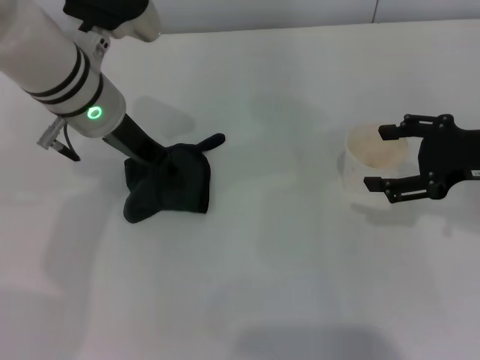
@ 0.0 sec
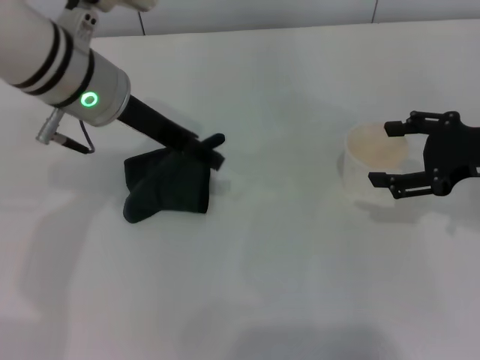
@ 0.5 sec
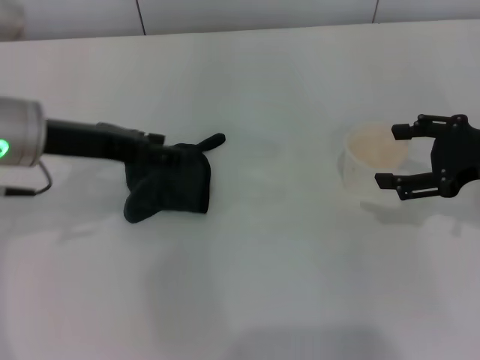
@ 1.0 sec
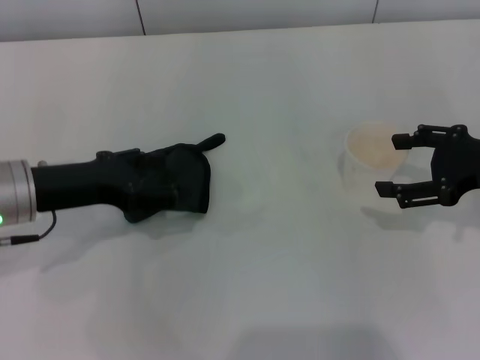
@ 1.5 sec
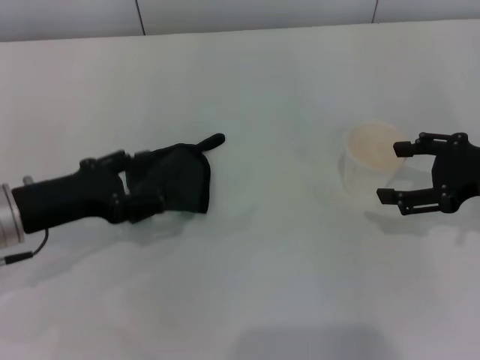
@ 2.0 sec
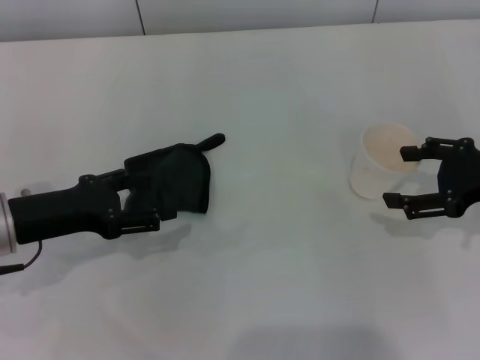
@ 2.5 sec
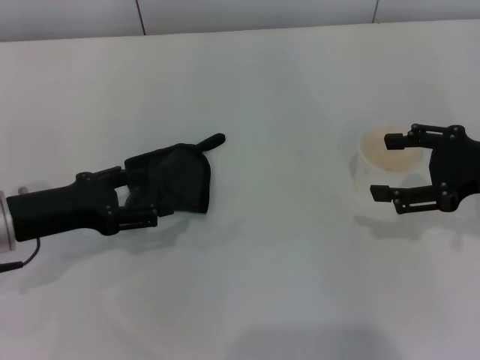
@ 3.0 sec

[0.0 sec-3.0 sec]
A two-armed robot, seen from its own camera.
0.0 sec to 1.5 sec: The left gripper moves to the left, backward and downward, some 15 cm, and opens.
1.5 sec to 3.0 sec: There are only small adjustments of the grippers.

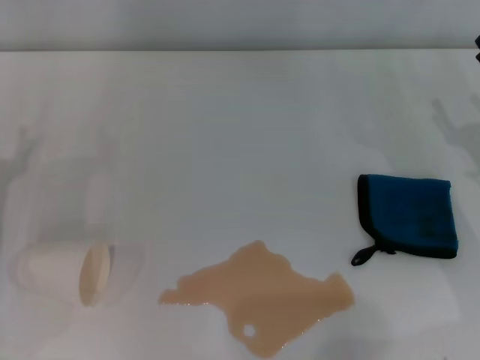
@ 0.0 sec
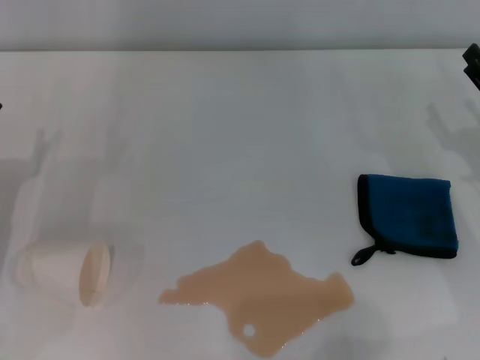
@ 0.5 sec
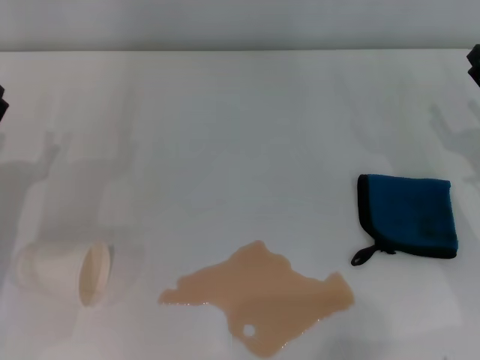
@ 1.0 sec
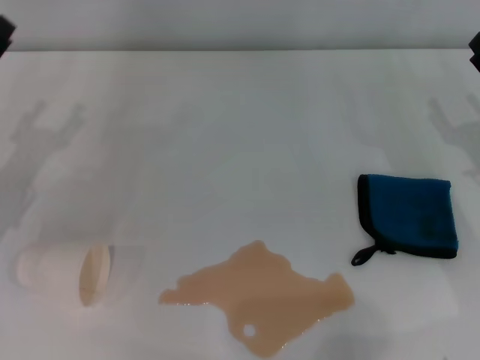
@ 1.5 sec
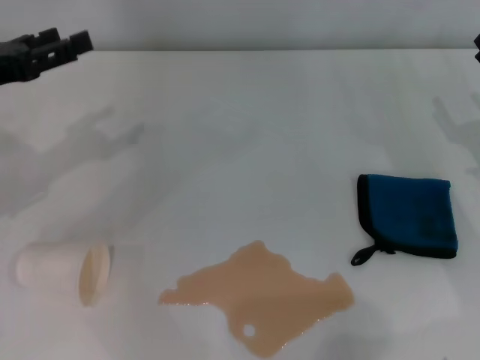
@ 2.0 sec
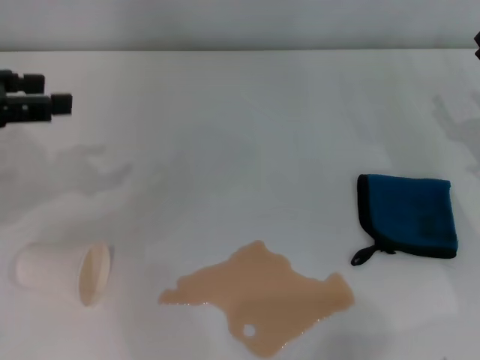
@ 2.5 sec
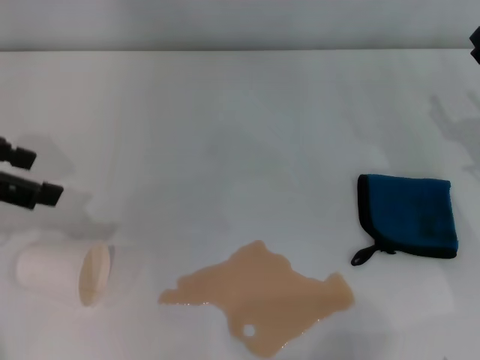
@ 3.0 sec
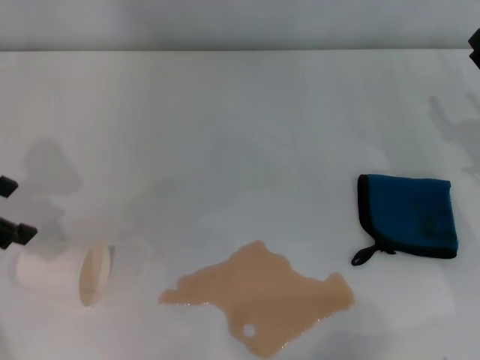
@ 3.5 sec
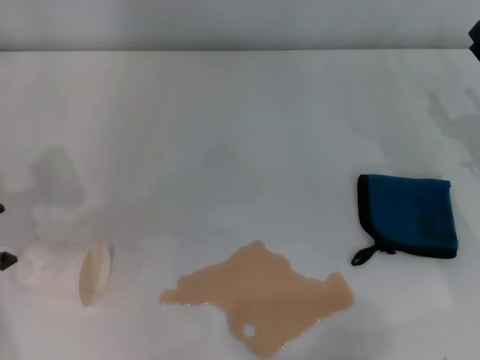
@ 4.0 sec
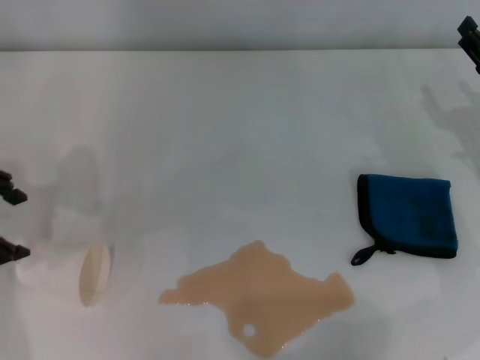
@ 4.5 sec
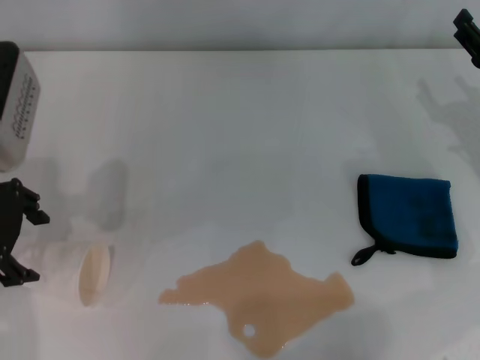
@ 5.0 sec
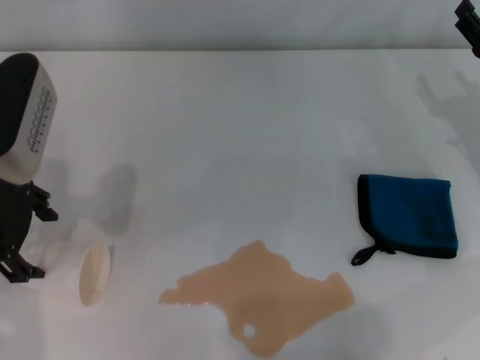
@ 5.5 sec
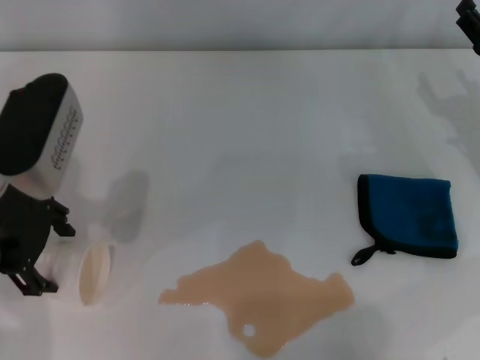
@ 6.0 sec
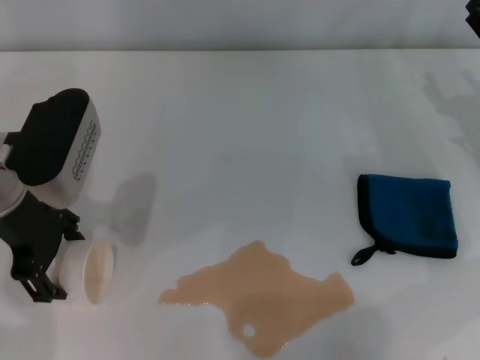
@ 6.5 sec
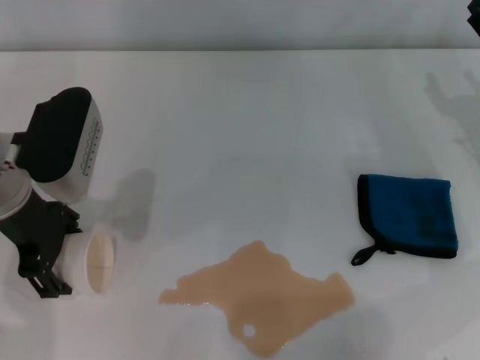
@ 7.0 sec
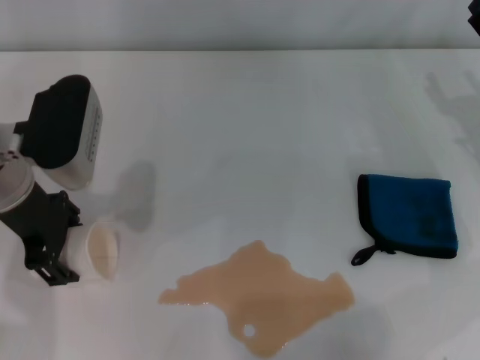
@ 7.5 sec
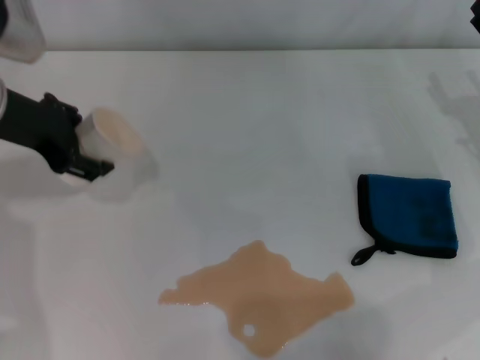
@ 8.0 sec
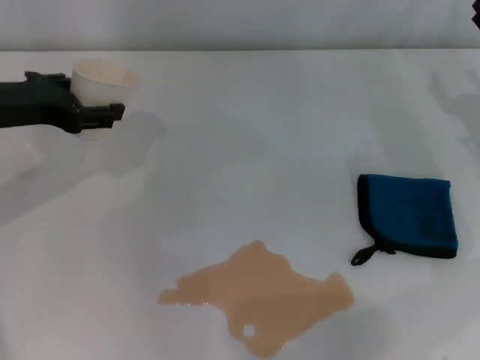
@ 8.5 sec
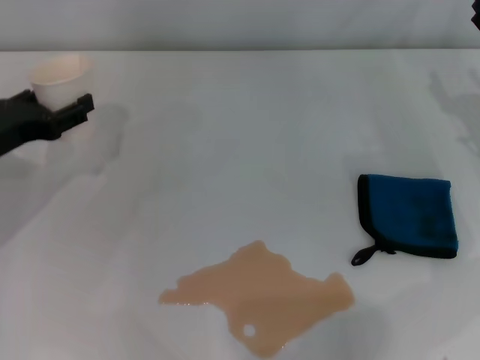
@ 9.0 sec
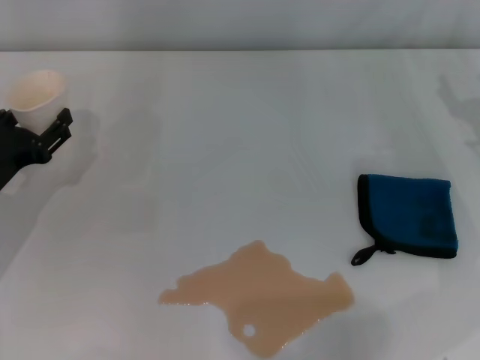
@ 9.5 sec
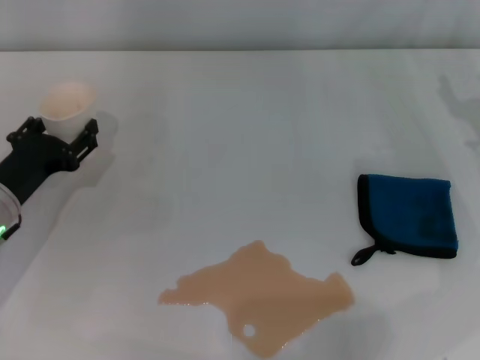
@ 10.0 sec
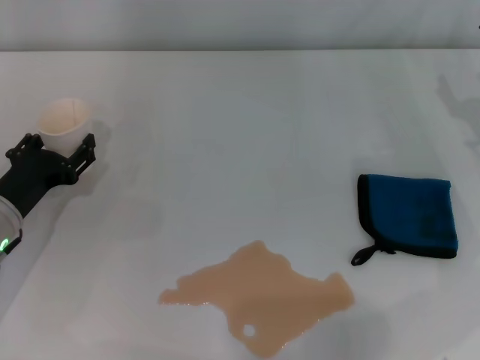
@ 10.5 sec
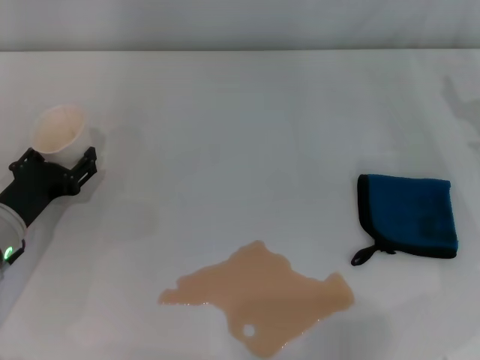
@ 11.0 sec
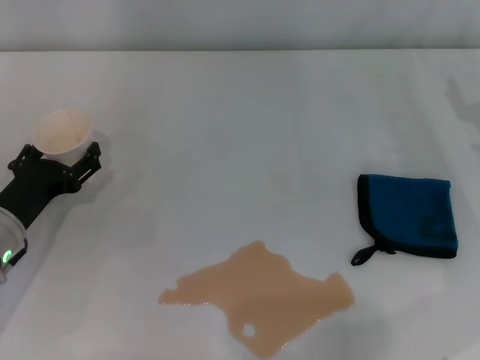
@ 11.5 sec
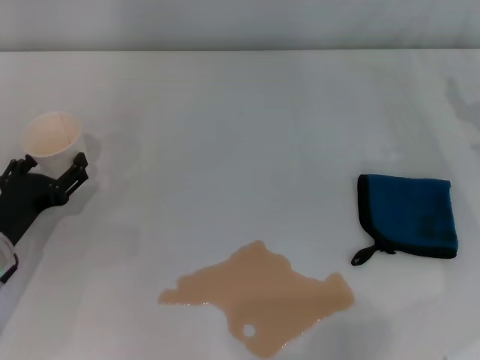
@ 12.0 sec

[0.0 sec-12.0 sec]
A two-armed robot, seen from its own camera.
Step, 0.0 sec to 7.0 sec: Grasp the paper cup with the left gripper.
0.0 sec to 2.0 sec: The left gripper shifts roughly 15 cm upward and forward.
2.0 sec to 4.0 sec: The left gripper closes and opens again.
4.0 sec to 6.0 sec: The left gripper shifts some 5 cm to the right.
6.0 sec to 8.0 sec: The left gripper closes.
8.0 sec to 10.0 sec: The left gripper is displaced downward by approximately 15 cm.
10.0 sec to 12.0 sec: The left gripper opens up.

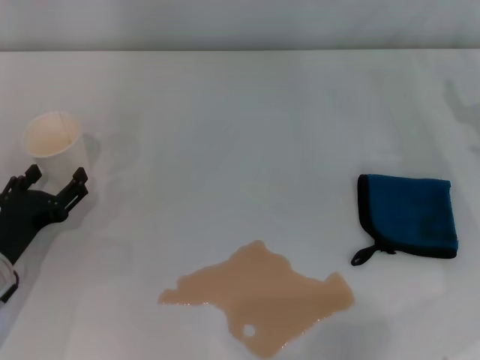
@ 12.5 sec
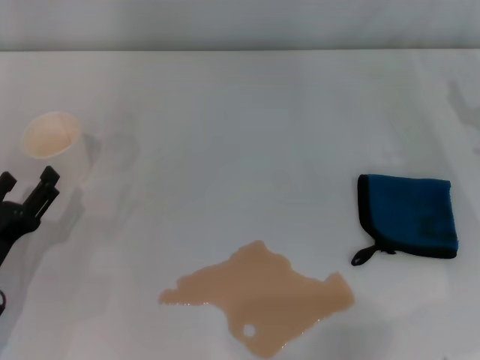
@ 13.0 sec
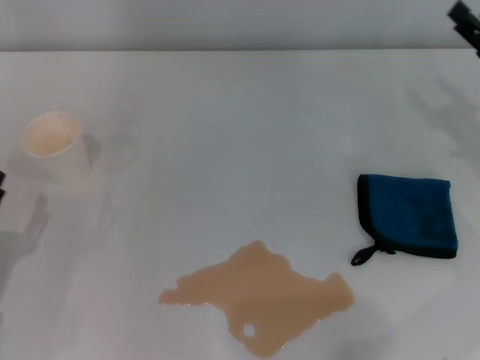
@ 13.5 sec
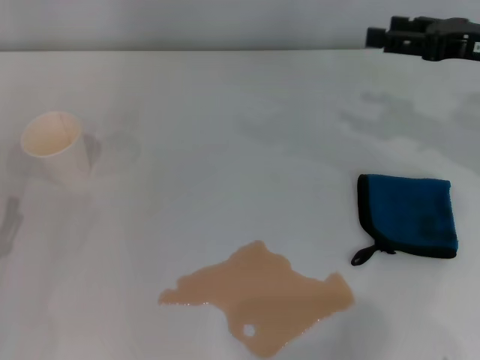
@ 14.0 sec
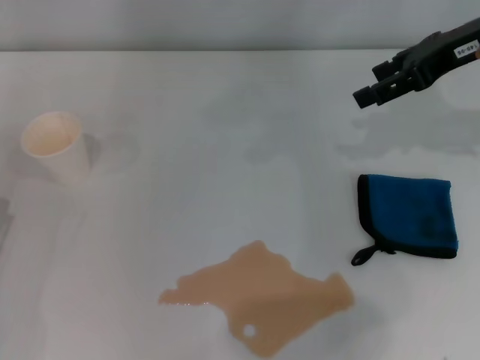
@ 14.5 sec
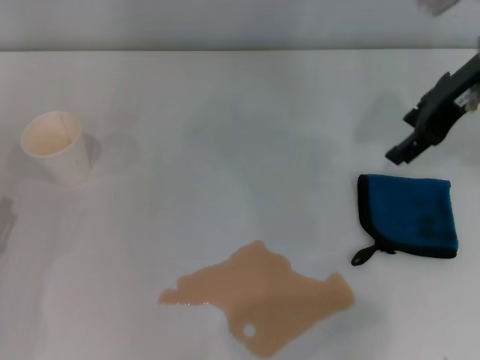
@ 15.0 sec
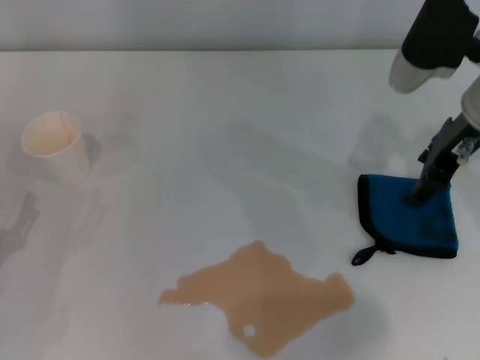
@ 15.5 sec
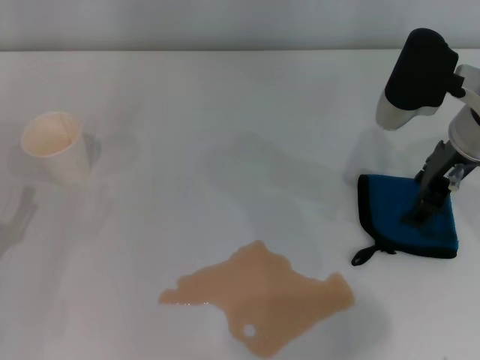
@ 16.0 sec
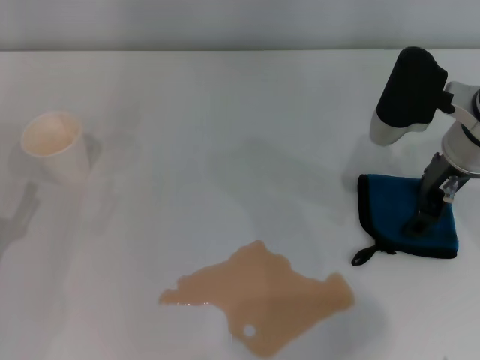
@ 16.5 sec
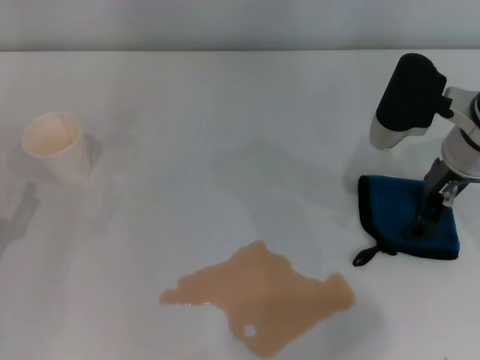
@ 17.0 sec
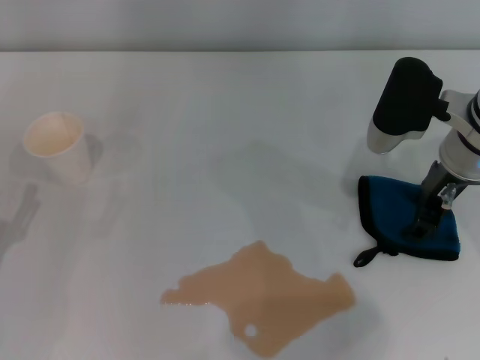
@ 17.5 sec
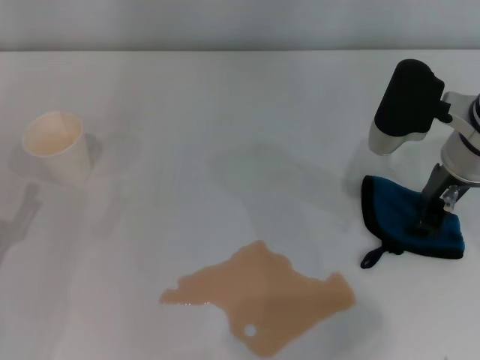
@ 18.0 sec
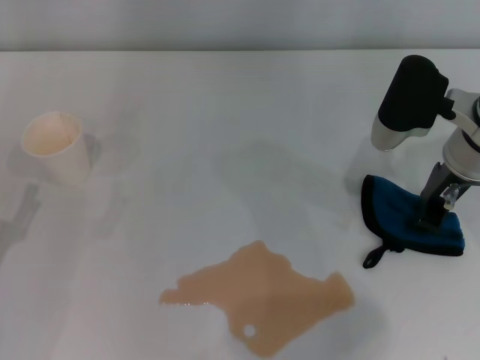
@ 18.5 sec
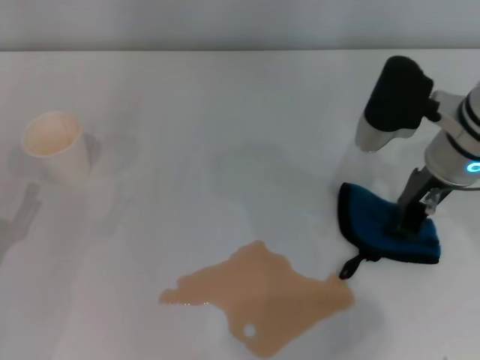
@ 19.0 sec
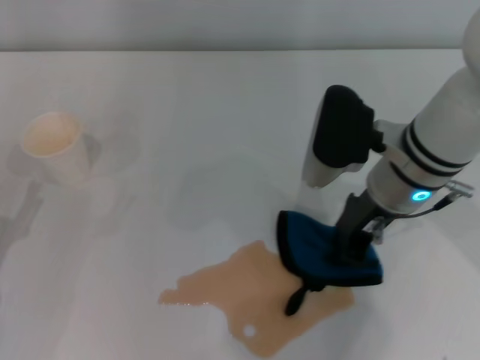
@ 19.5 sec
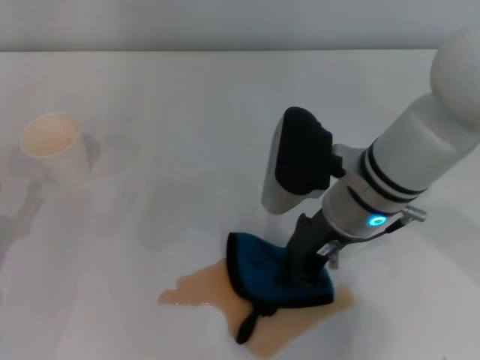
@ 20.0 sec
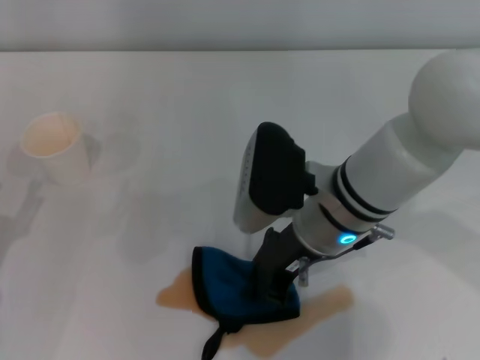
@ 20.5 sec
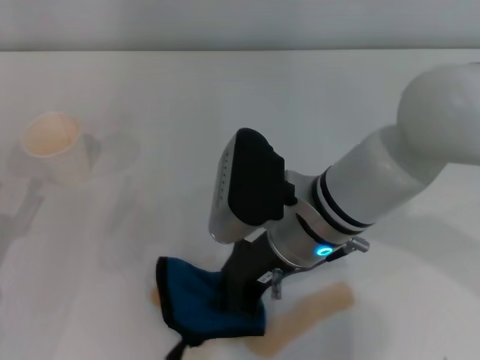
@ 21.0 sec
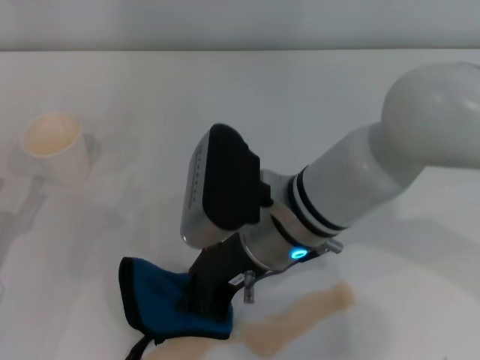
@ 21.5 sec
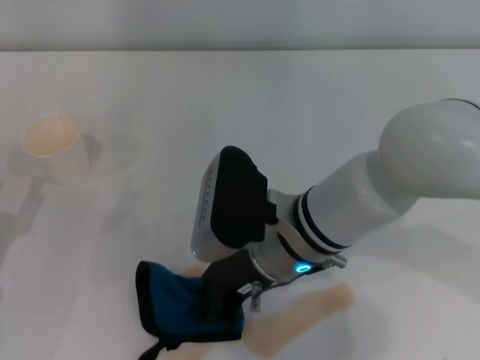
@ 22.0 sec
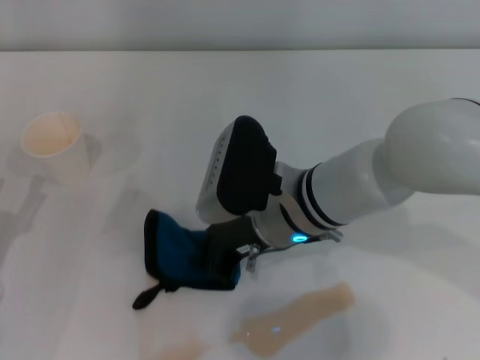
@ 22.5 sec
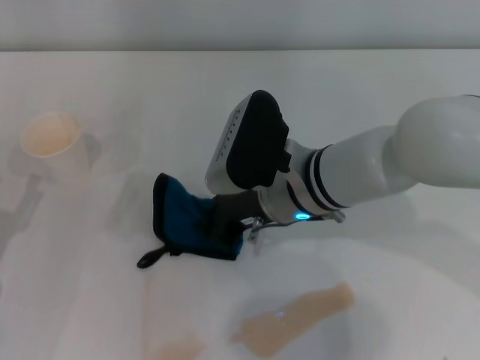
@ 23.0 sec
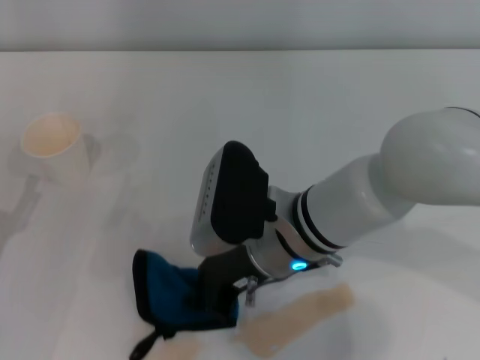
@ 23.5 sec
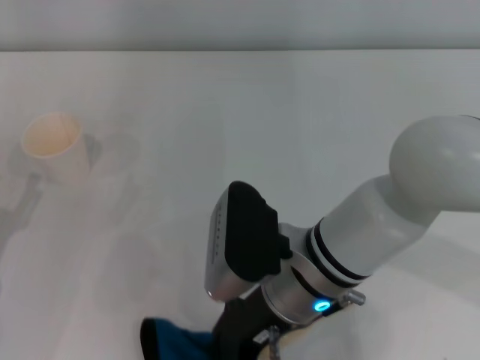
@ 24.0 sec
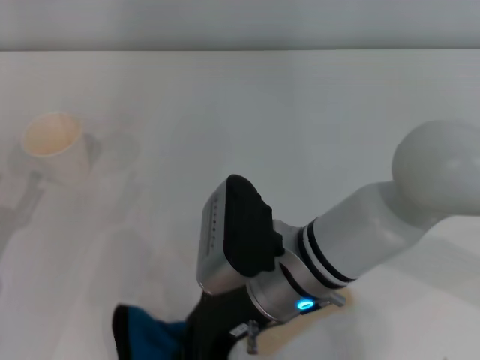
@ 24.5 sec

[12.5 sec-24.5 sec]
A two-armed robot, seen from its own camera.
Step, 12.5 sec to 18.5 sec: Grasp the rag with the right gripper.
12.5 sec to 14.5 sec: The left gripper travels backward by some 10 cm; the right gripper goes roughly 20 cm upward, to the left and forward.
14.5 sec to 16.5 sec: The right gripper travels downward and to the left by some 10 cm.
16.5 sec to 18.5 sec: The right gripper closes its fingers.
18.5 sec to 20.5 sec: The right gripper goes roughly 15 cm to the left and backward.
20.5 sec to 22.5 sec: The grippers move only a little.
22.5 sec to 24.5 sec: The right gripper is displaced backward by approximately 5 cm.
